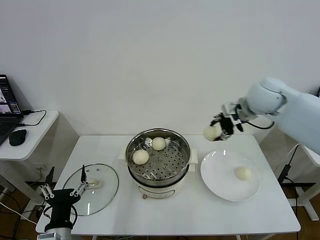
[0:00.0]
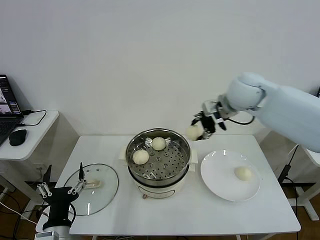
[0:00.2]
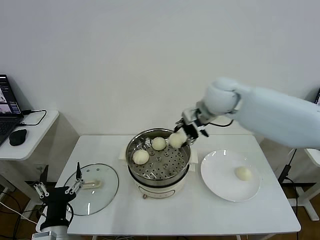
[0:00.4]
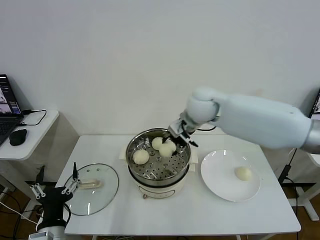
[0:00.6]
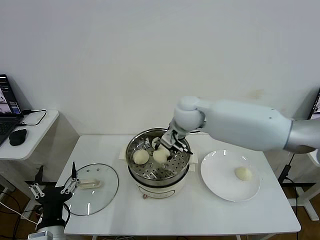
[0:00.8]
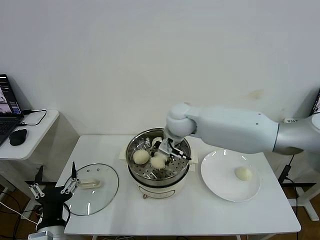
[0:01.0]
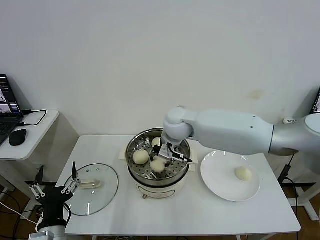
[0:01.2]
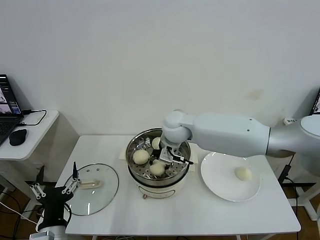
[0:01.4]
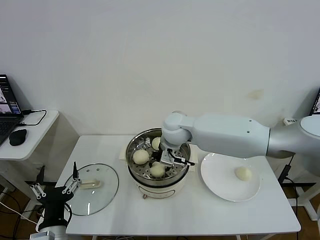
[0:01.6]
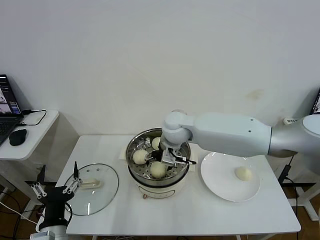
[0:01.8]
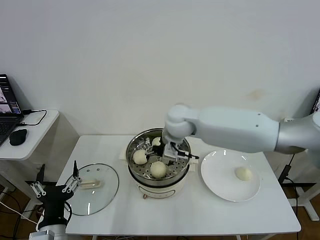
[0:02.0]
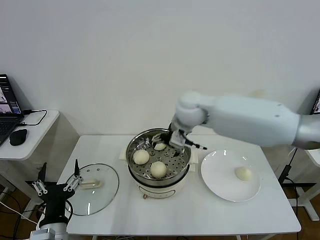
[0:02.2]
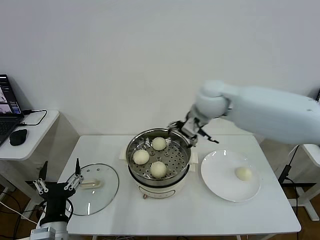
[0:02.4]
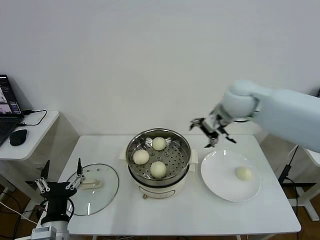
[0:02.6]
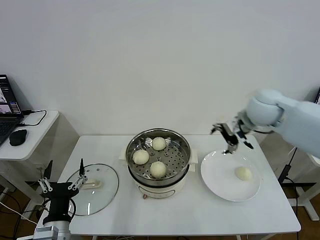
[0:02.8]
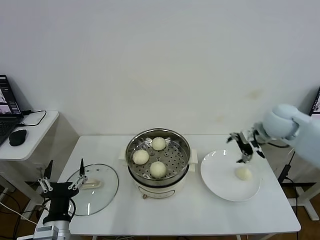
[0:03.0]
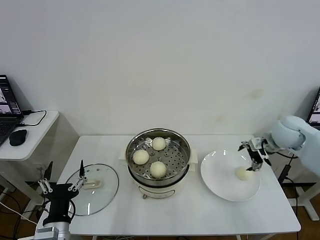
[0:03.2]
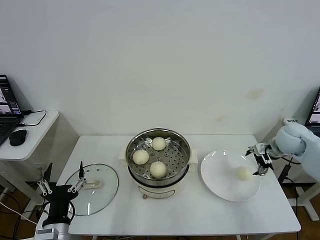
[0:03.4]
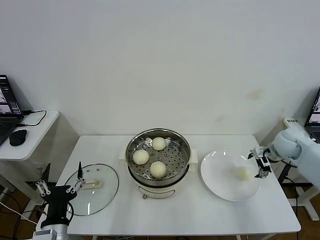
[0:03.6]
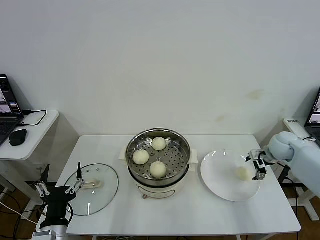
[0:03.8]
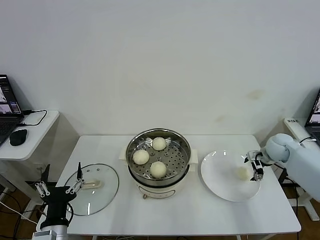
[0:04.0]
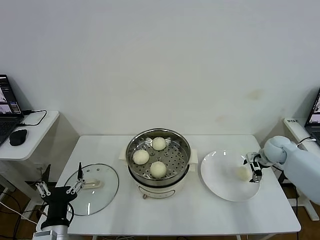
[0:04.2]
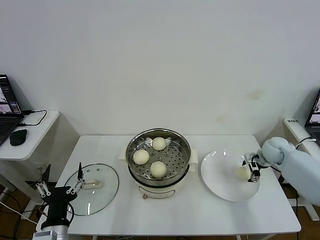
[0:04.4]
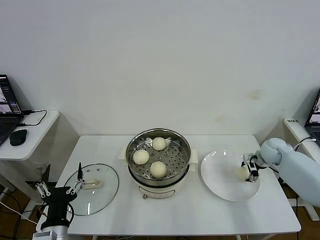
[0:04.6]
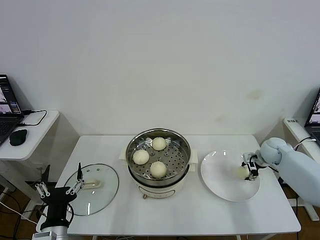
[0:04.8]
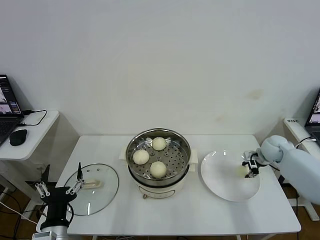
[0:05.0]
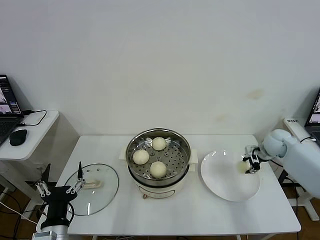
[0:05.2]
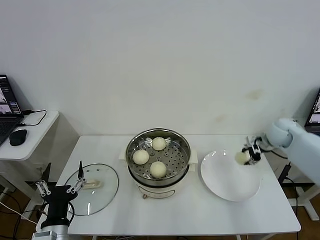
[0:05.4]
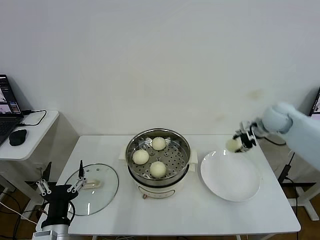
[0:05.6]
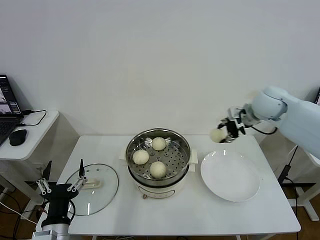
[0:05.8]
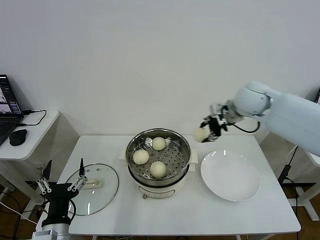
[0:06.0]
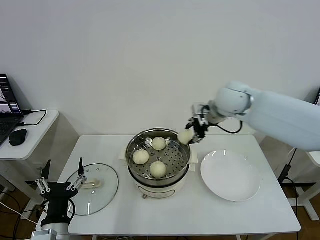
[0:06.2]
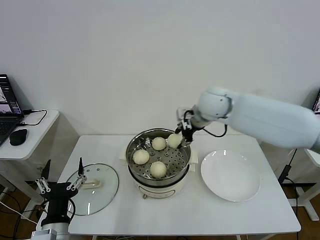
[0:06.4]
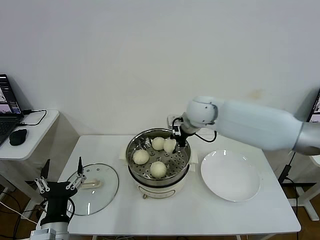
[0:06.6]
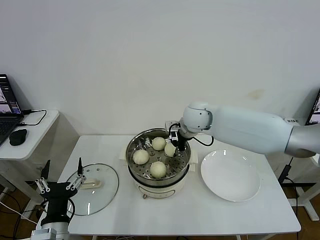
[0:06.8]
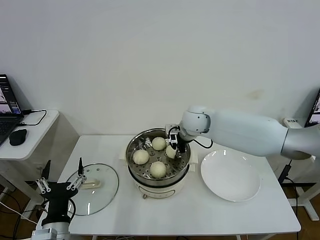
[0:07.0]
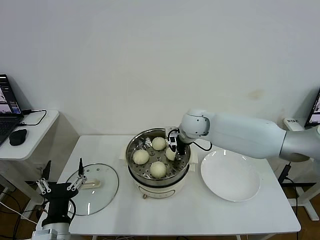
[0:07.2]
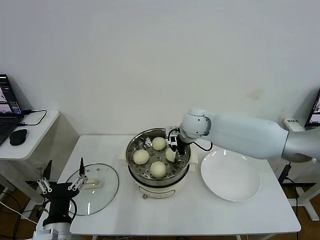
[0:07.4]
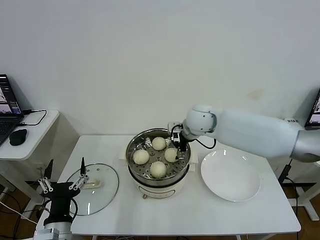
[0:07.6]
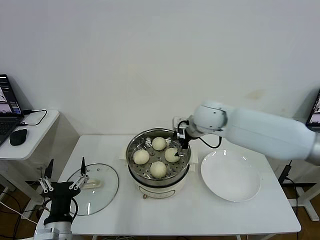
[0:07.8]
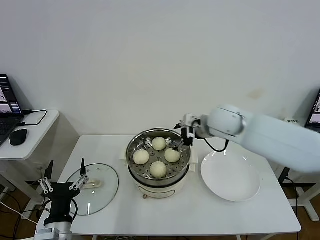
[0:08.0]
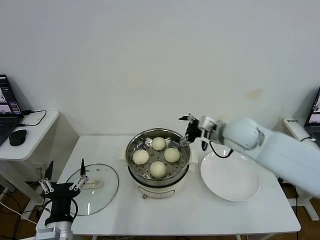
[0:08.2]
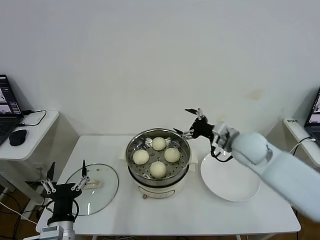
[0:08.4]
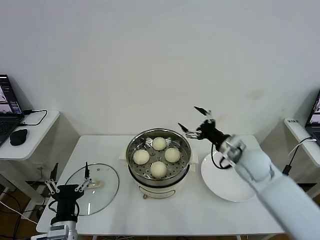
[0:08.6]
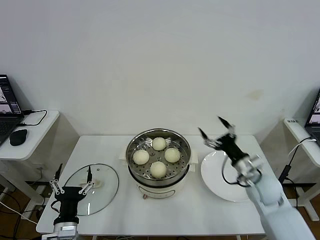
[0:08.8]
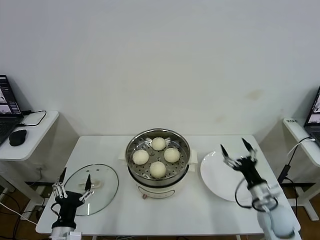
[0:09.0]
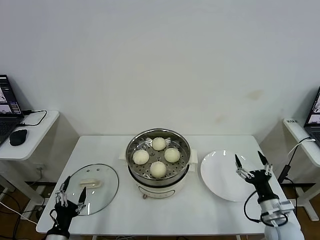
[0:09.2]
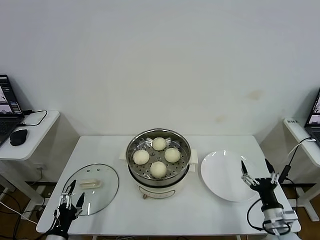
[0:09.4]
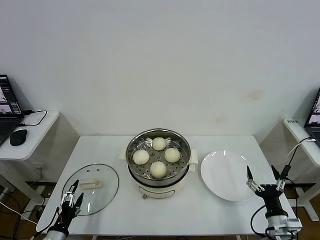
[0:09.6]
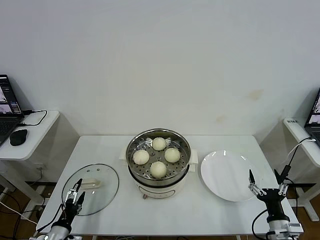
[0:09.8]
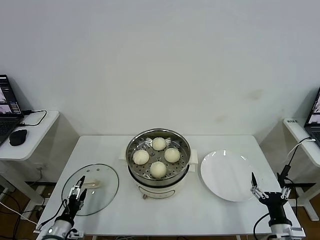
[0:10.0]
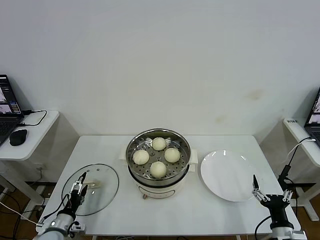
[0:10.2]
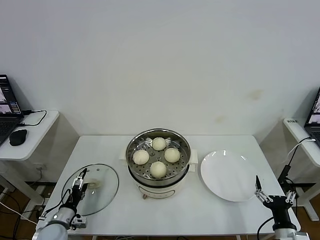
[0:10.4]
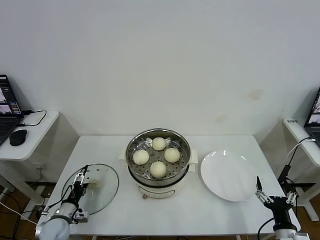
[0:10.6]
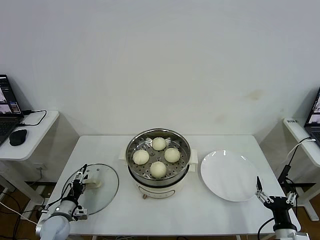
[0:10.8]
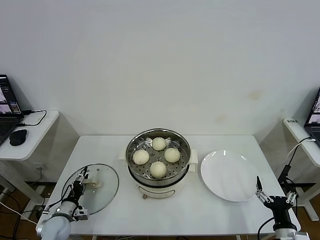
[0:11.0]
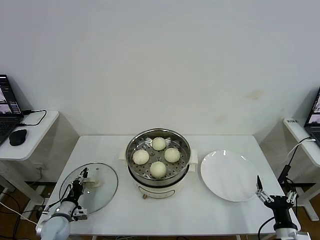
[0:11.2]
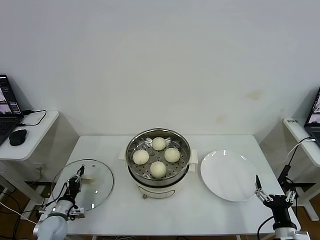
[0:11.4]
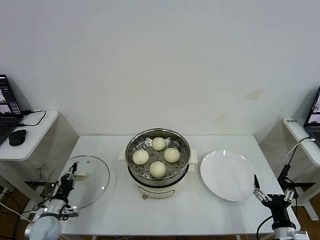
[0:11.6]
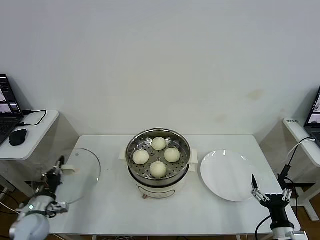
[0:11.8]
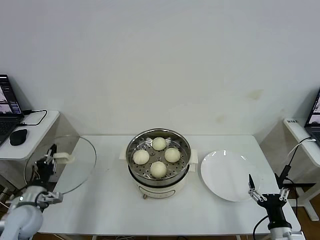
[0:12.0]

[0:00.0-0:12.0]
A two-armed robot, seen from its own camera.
Step, 0:00.0 to 0:01.8: Place the baozi on the steamer with right gripper.
Step, 0:02.0 to 0:04.8: Grasp the baozi in the plate with right gripper.
Step, 0:05.0 to 0:07.6: Place the baozi on the steamer with right gripper.
Step, 0:07.8 to 0:11.4: Grasp the pot lid with left gripper.
0:00.0 to 0:01.6: The right gripper travels to the left and downward by roughly 25 cm.
0:01.6 to 0:03.0: The right gripper heads to the right, covering approximately 30 cm, and opens its fingers.
0:03.0 to 0:04.4: The right gripper moves downward and to the right, approximately 20 cm.
0:04.4 to 0:06.0: The right gripper shifts approximately 30 cm upward and to the left, and closes.
0:06.0 to 0:07.6: The right gripper is displaced to the left and downward by some 15 cm, and opens.
0:07.6 to 0:09.0: The left gripper moves downward, some 5 cm; the right gripper is displaced to the right, backward and downward by some 40 cm.
0:09.0 to 0:10.4: The right gripper travels backward by about 15 cm. Meanwhile the left gripper goes some 15 cm to the left, downward and forward.
0:10.4 to 0:12.0: The left gripper heads upward, covering about 10 cm, and closes its fingers.

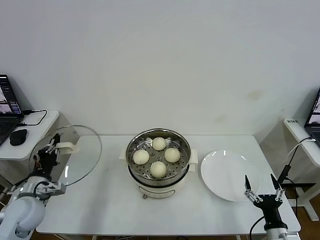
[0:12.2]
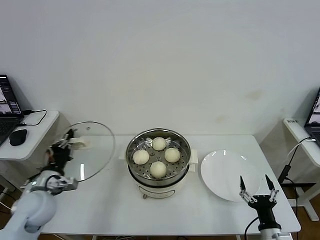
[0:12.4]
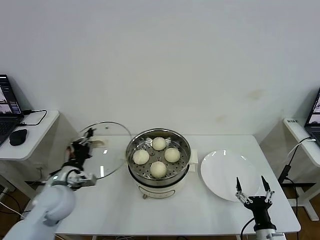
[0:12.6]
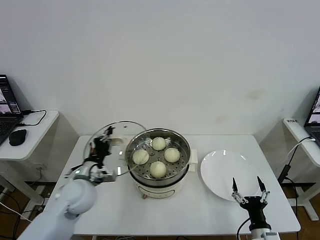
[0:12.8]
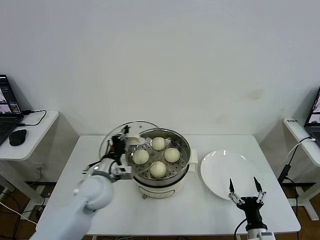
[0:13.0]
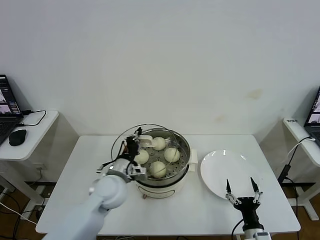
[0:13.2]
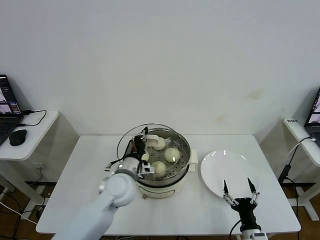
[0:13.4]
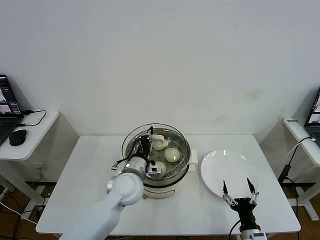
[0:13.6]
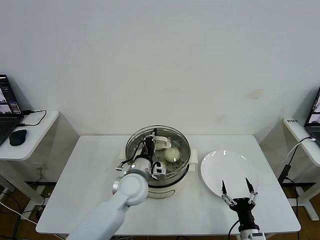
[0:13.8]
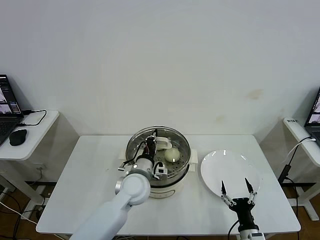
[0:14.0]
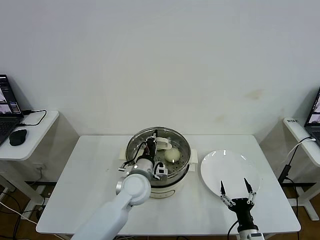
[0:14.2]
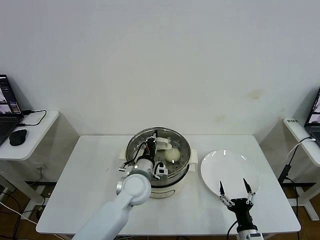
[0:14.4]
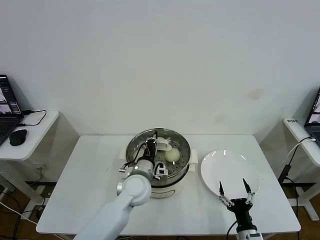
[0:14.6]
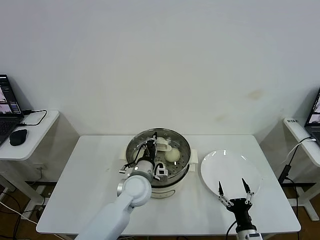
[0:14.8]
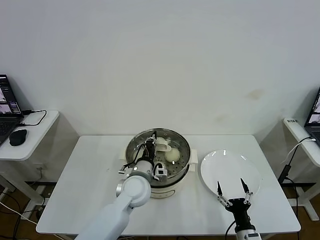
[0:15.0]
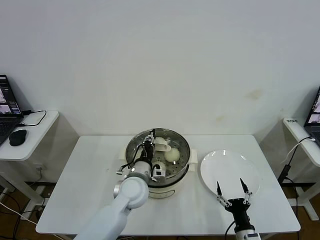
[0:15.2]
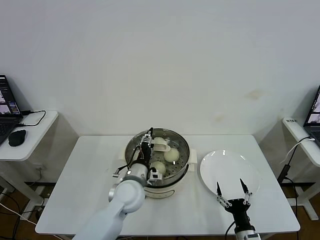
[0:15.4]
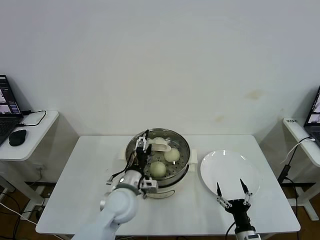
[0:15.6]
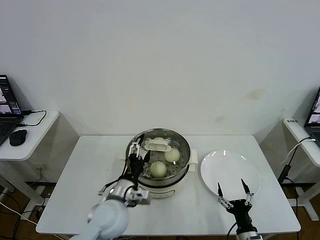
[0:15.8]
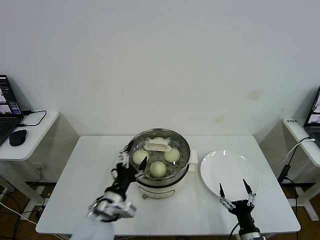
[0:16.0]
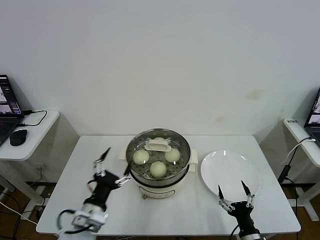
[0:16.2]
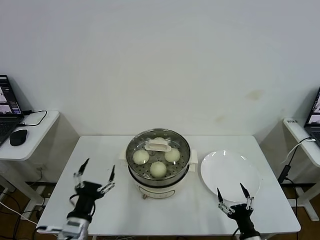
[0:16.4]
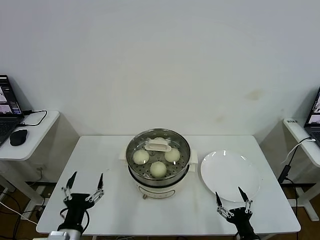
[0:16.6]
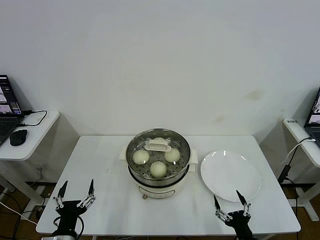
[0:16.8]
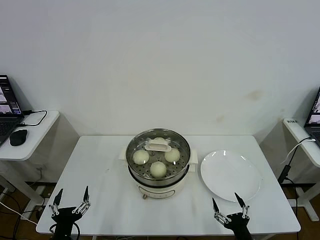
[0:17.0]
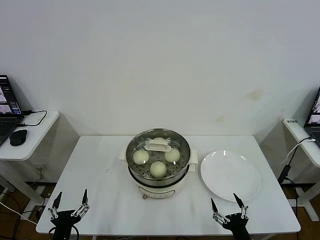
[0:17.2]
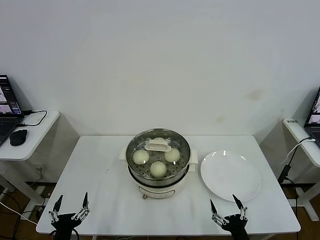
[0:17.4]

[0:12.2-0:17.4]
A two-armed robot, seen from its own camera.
Step, 0:12.2 to 0:15.6: Place the pot lid on the steamer with left gripper.
0:12.2 to 0:14.0: The left gripper shifts some 30 cm to the right, while the right gripper shifts roughly 5 cm to the left.
0:14.0 to 0:15.6: The left gripper opens.
0:15.6 to 0:17.4: The left gripper travels backward, to the left and downward by about 30 cm. The right gripper is displaced backward by about 5 cm.

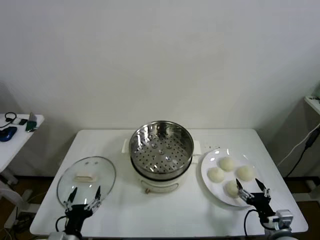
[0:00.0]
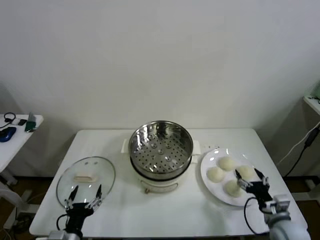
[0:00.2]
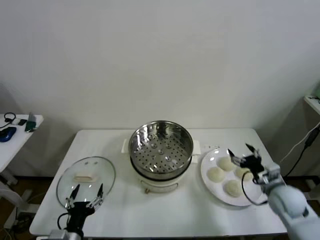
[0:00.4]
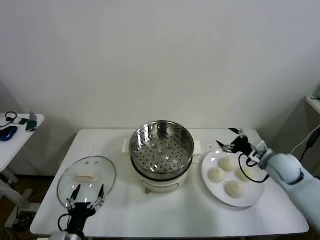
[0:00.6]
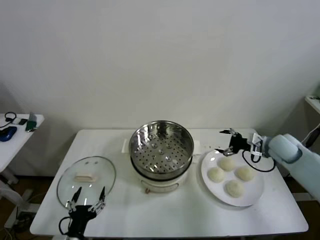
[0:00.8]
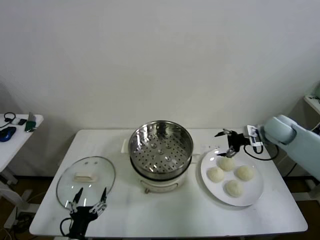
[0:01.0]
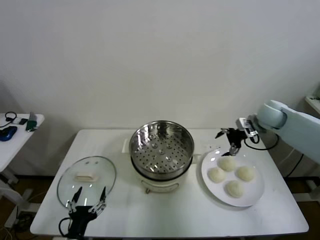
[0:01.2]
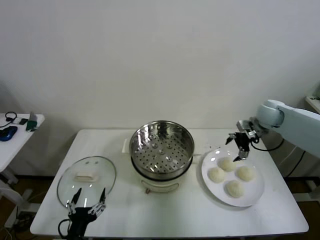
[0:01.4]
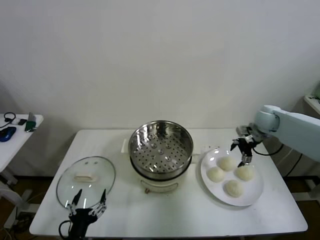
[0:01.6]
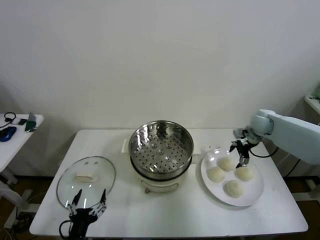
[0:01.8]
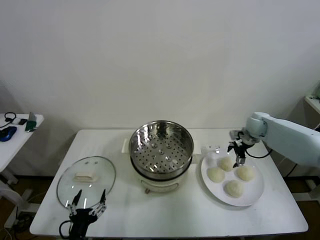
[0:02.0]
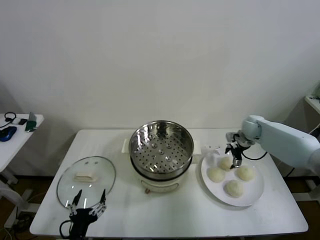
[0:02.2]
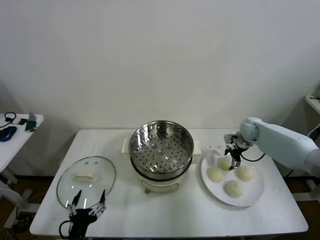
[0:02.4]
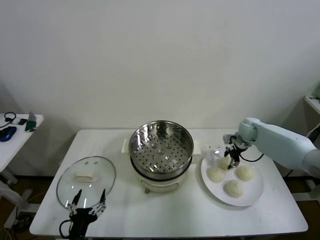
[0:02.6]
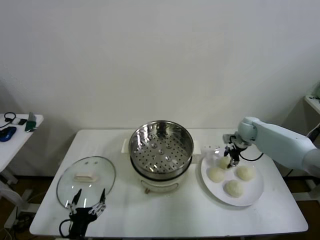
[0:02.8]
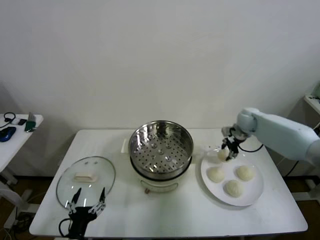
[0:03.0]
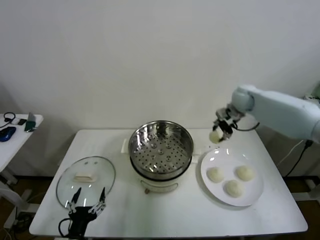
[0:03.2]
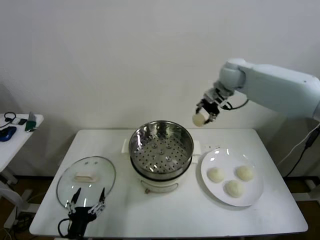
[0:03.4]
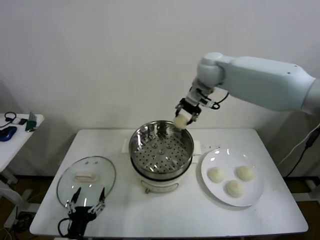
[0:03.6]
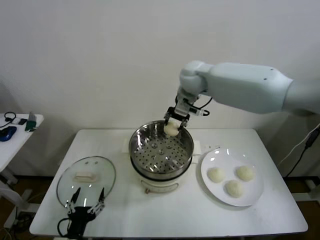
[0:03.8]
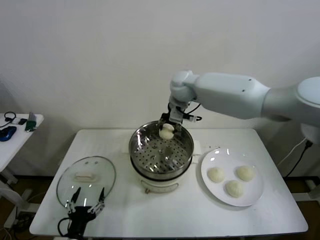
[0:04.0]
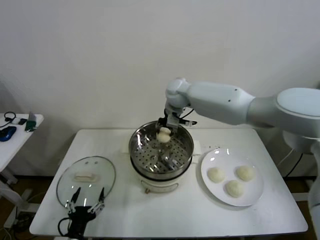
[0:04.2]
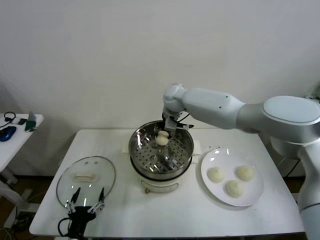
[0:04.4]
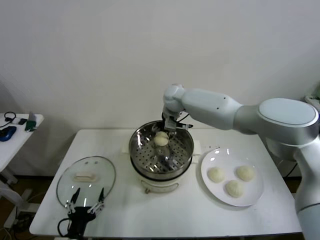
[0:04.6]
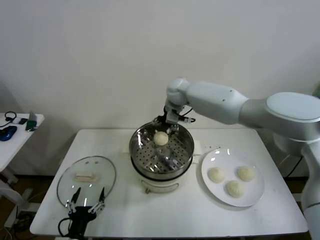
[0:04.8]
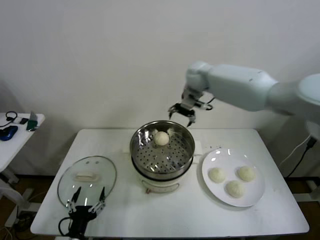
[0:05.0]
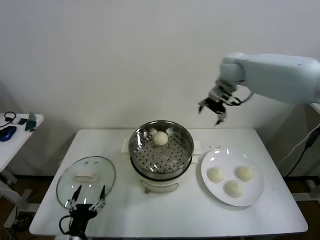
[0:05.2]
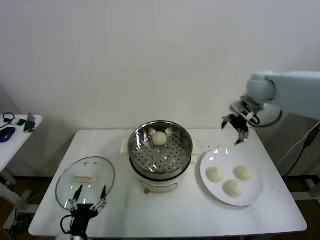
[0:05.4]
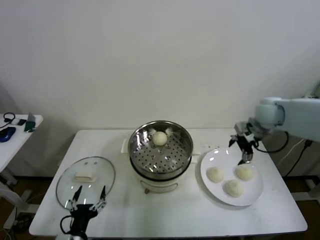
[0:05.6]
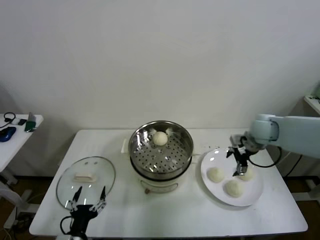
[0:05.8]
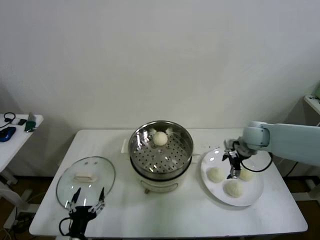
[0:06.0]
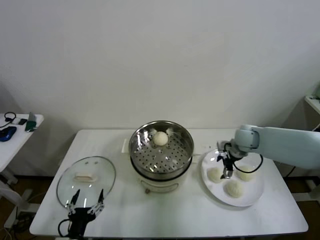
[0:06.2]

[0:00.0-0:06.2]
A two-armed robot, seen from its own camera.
Step, 0:00.0 to 0:02.6: Grasp the baozi in the plate with right gripper.
Step, 0:03.0 to 0:04.6: Place the baozi on the steamer with right gripper.
0:01.6 to 0:03.2: The right gripper shifts approximately 20 cm upward, to the left and forward, and closes its fingers.
0:03.2 to 0:04.6: The right gripper travels to the left by approximately 20 cm, and opens up.
0:04.6 to 0:06.2: The right gripper goes about 30 cm to the right, downward and backward.
